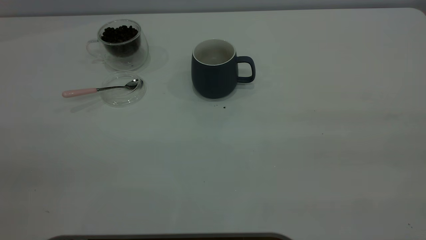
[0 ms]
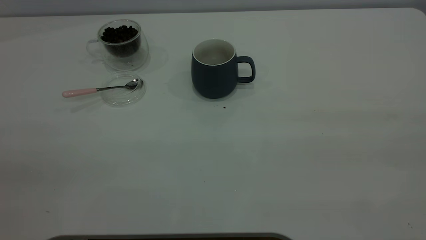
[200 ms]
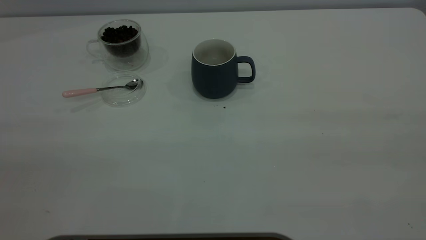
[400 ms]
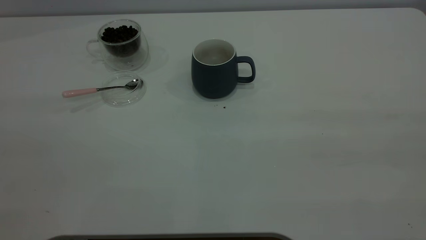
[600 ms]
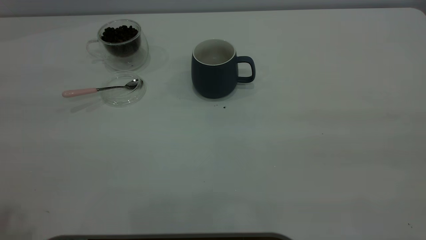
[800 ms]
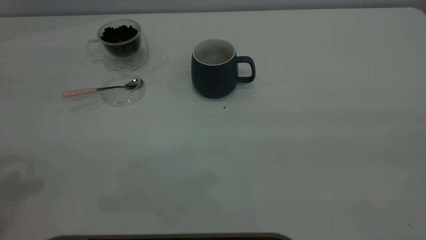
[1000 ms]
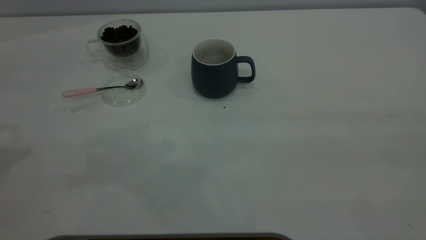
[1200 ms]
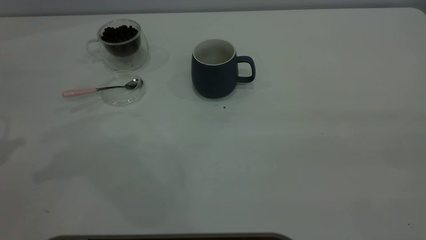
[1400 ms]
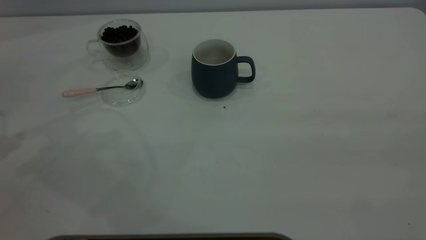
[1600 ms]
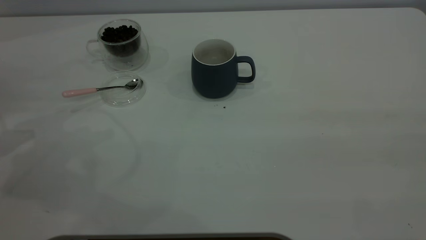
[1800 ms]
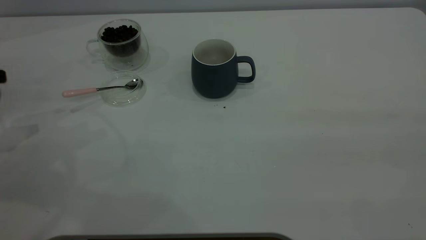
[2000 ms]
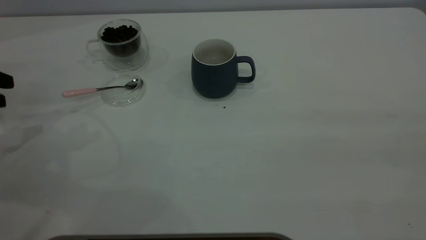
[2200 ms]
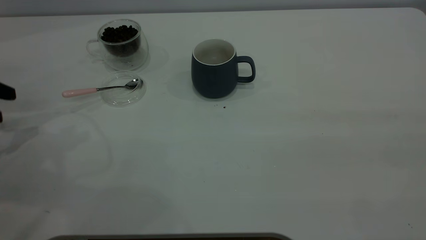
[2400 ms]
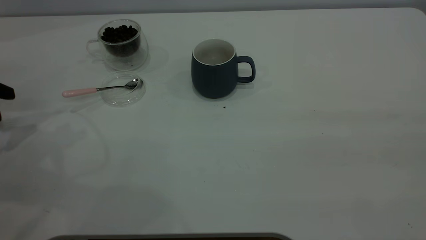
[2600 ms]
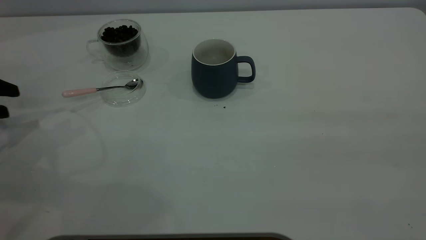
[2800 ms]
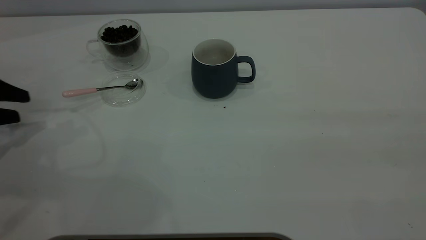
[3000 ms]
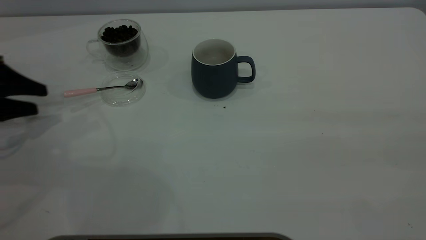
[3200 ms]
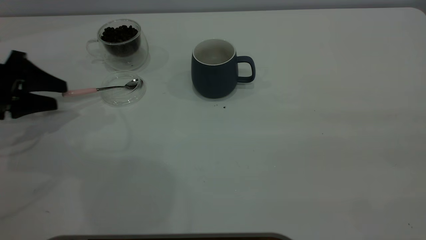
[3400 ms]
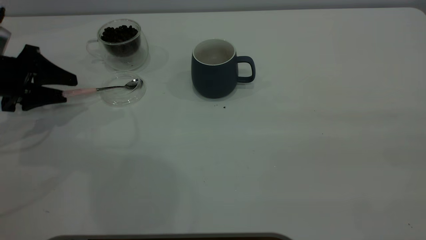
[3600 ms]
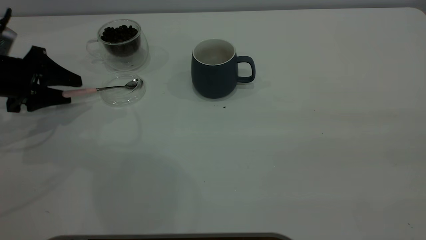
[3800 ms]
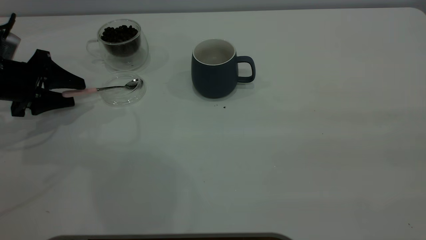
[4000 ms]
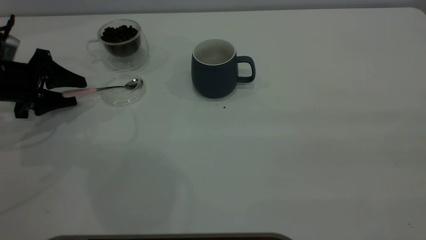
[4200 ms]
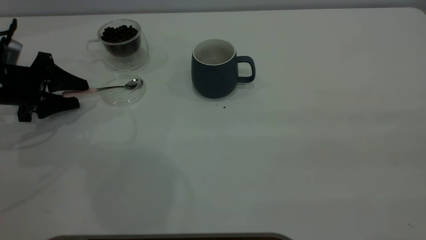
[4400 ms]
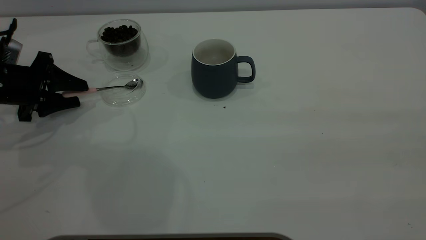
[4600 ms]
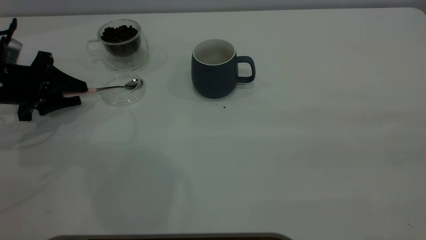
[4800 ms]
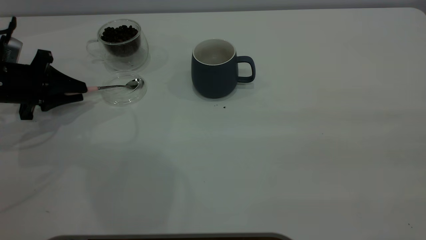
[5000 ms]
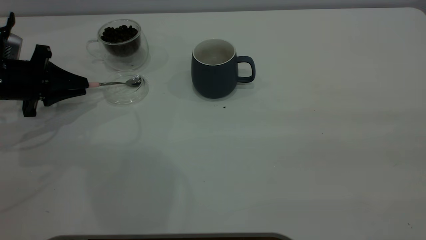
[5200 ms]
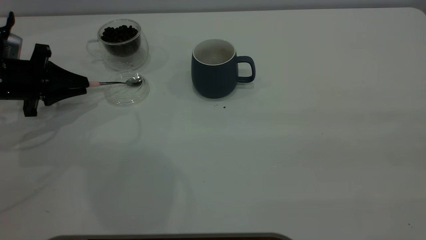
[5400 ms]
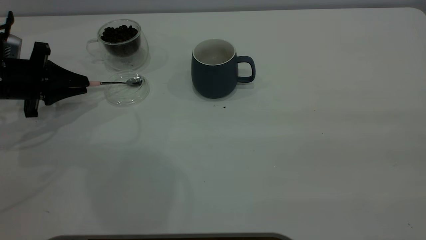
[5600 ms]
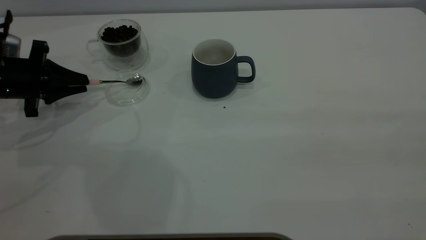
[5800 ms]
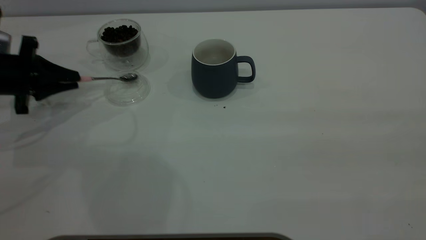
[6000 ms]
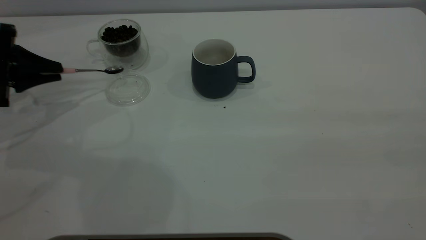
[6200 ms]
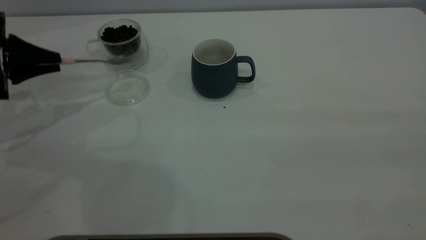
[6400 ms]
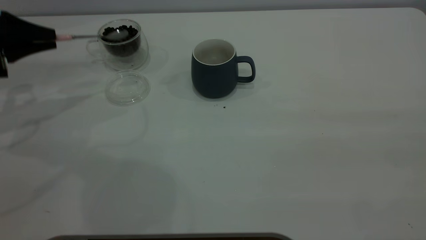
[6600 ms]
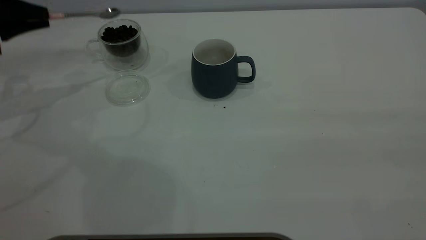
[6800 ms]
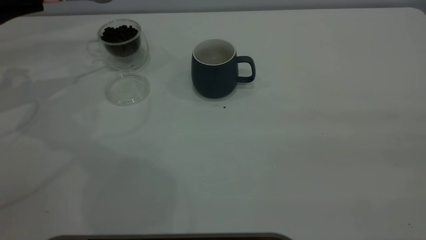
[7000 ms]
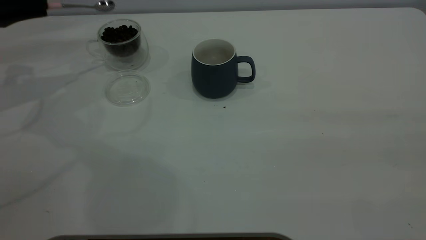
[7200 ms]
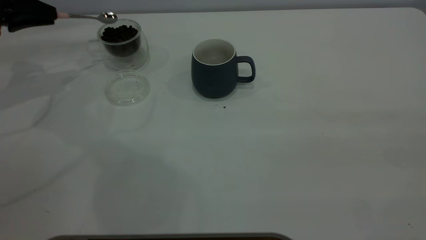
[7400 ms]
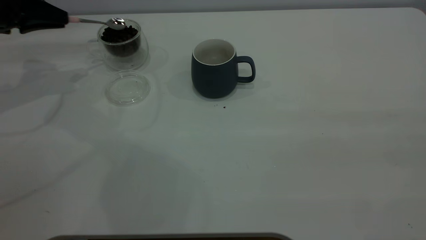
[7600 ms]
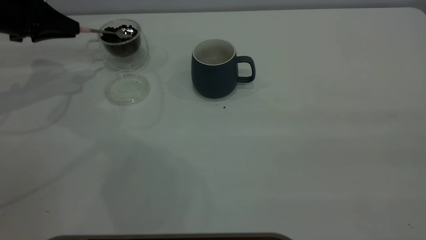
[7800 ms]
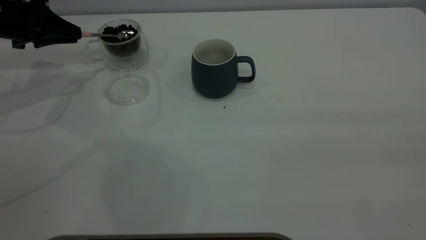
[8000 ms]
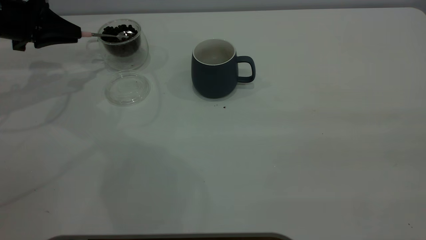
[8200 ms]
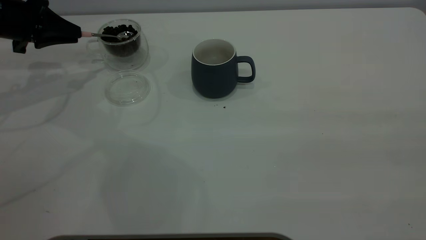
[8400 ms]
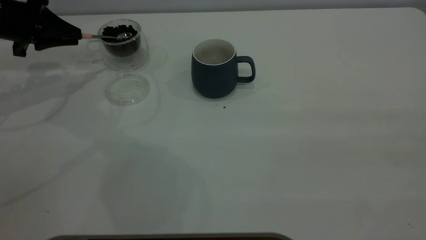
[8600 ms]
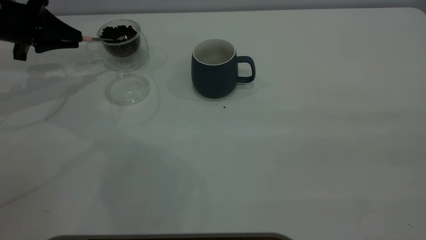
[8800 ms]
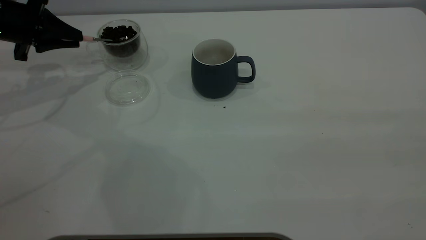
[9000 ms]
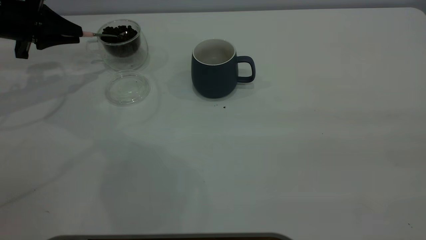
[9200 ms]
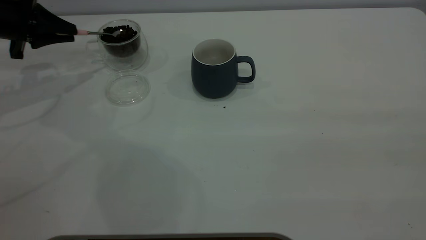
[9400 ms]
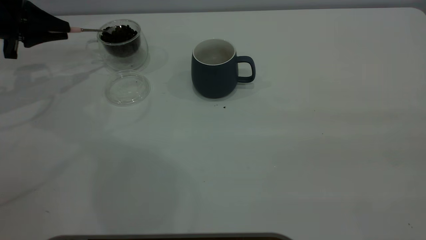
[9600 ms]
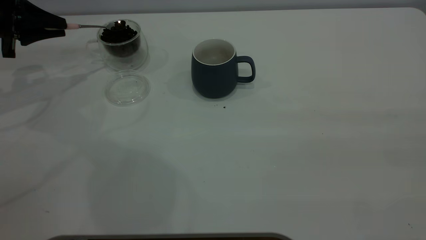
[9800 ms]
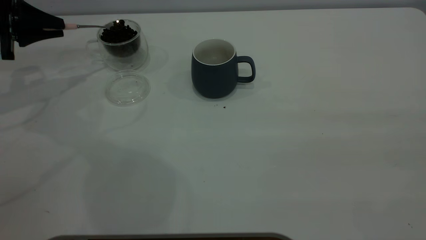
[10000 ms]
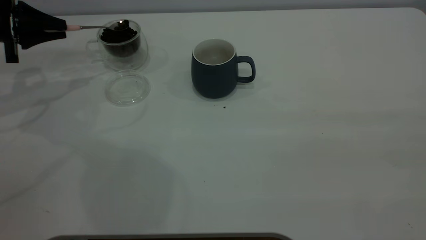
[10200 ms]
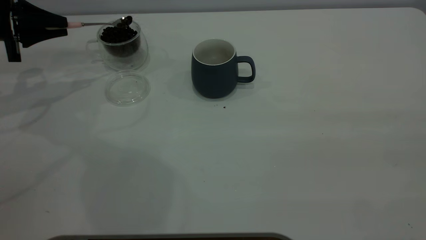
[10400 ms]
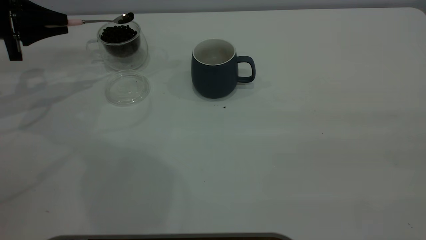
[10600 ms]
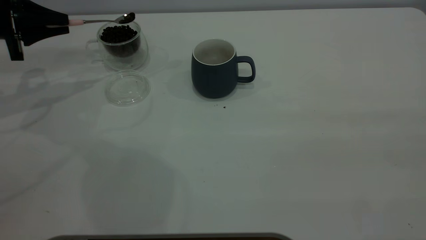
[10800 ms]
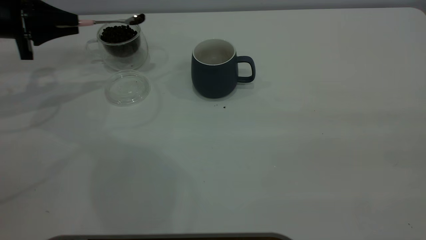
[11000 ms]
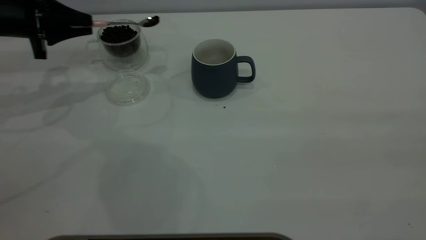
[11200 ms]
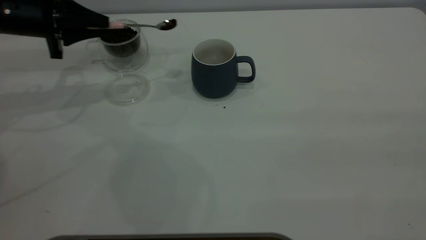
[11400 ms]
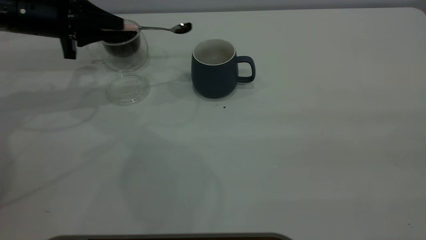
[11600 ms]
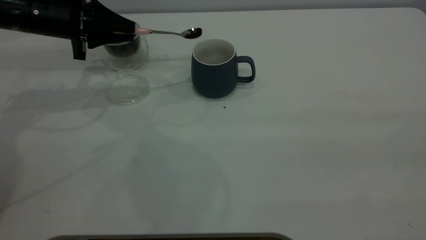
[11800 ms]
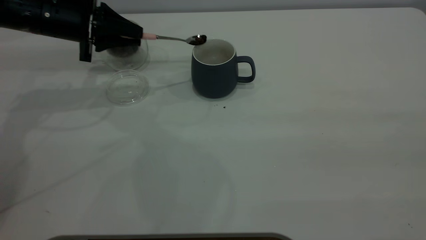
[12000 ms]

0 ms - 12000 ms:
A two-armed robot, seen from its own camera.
Task of the whole recording: the right gripper place the grey cup in the center of the table, the left gripper take the pink spoon from the cup lid and scoop out the coffee beans from the coffee cup and put them into the grey cup, the left gripper put the spoon back into the cup lid.
Step, 0 ms - 6200 ms: Pick up the spoon.
1600 ms - 3000 ms: The left gripper moves downward, about 10 cm, and opens up.
3000 ms - 4400 ms: The left gripper heads to the right, covering about 5 cm.
4400 ms - 6000 ms: The left gripper closes its fingers.
6000 ms - 7600 ms: The left gripper goes about 10 cm forward and upward.
9000 ms - 10400 ms: The grippers move only a little.
10400 ms - 12000 ms: The left gripper moves to the right, approximately 15 cm.

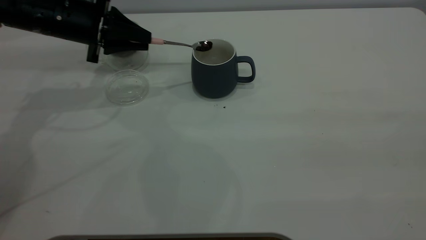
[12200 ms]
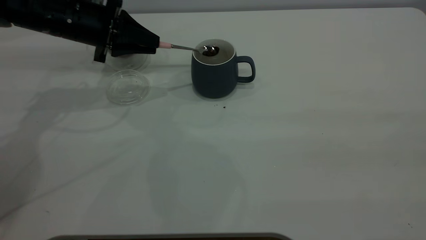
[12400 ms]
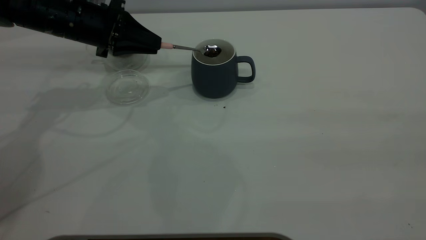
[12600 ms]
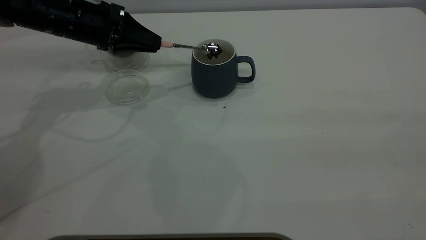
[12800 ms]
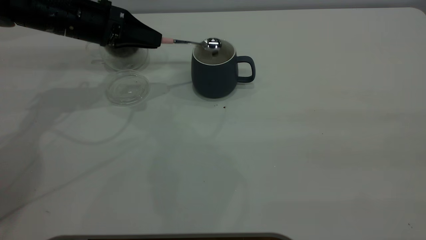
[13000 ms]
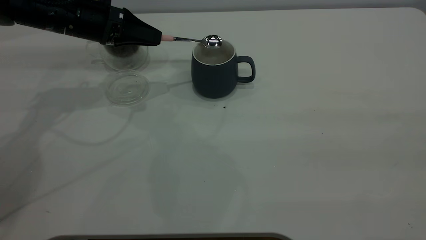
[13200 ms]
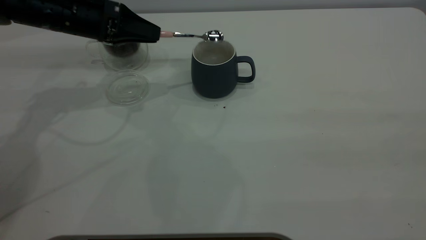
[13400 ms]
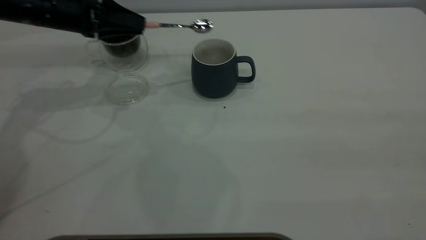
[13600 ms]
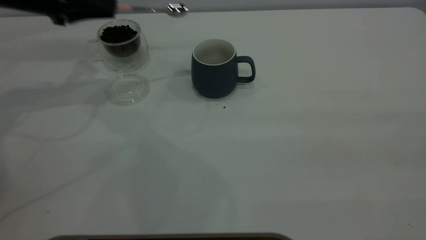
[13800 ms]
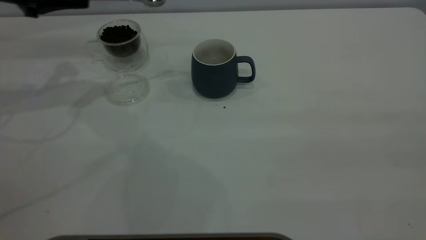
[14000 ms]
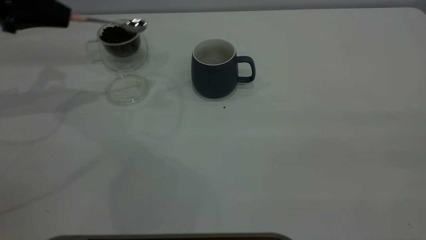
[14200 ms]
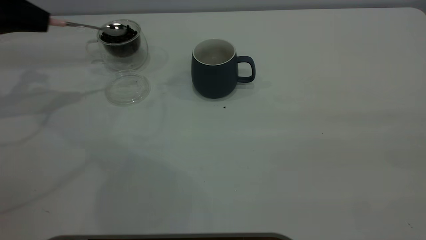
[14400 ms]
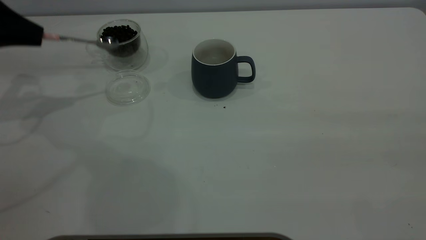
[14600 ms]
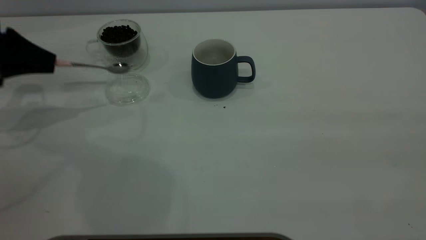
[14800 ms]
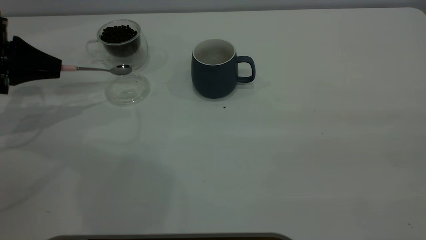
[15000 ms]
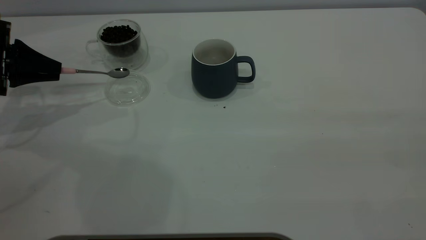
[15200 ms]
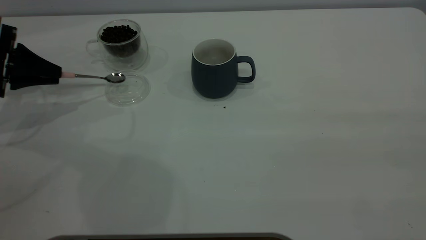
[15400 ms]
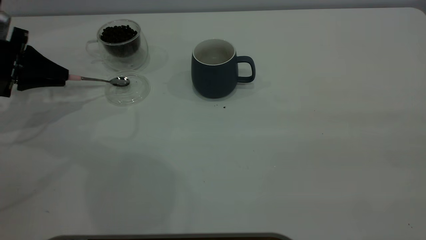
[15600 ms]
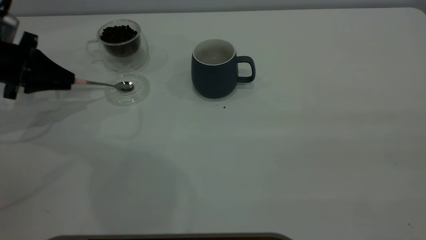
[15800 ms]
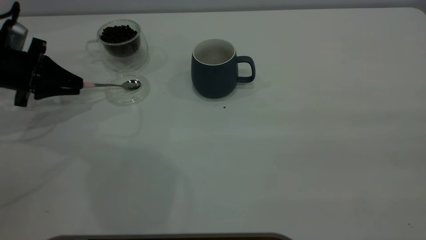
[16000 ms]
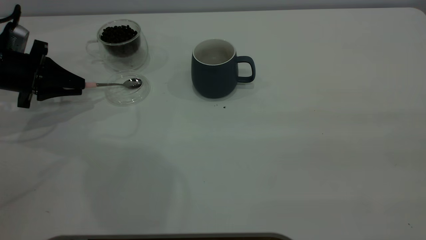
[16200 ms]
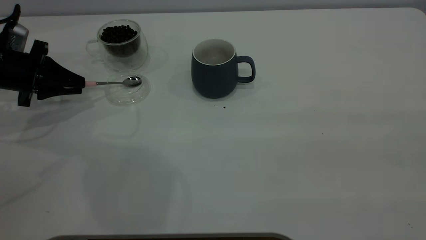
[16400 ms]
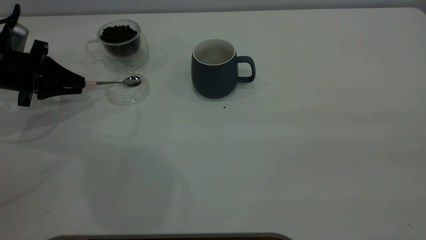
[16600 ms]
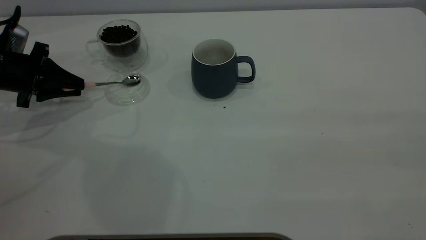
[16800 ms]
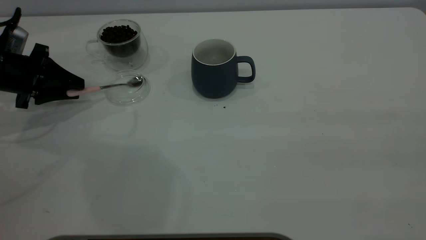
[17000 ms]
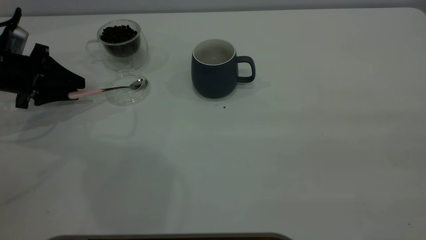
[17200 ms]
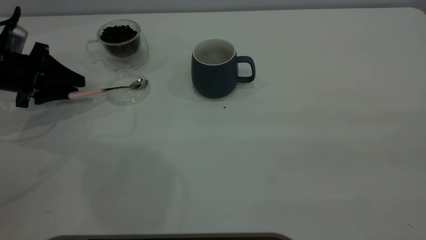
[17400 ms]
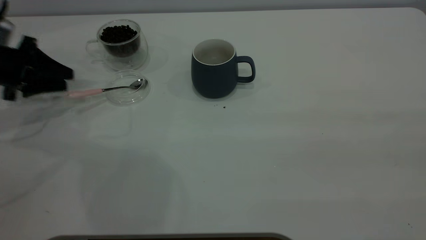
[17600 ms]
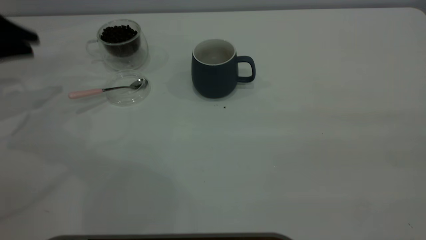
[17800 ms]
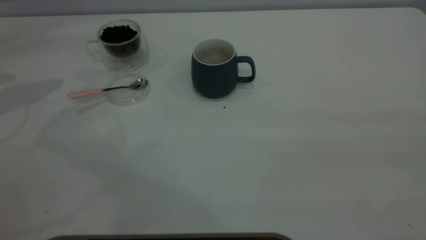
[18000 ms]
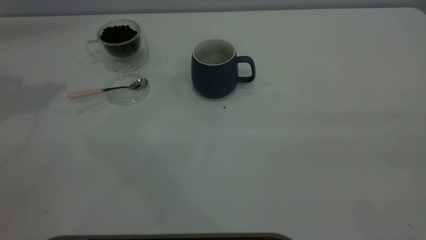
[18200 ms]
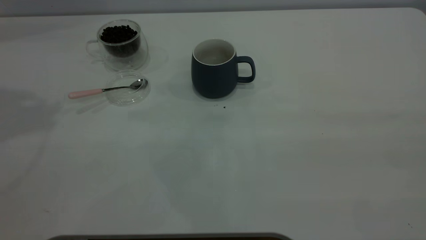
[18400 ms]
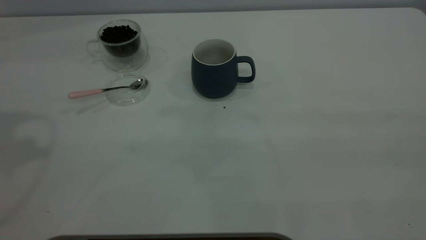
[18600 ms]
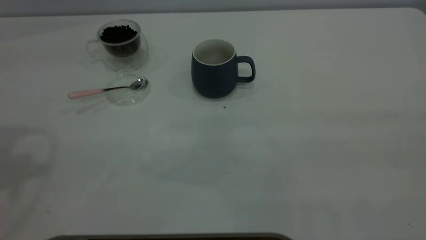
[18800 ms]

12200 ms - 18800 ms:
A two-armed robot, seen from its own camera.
Task of the whole recording: the right gripper place the grey cup in the center of the table, the left gripper take the pink spoon from the cup lid and scoop out the coffee beans from the coffee cup and put them into the grey cup, the left gripper put the spoon back into the cup lid.
Step, 13800 ms - 17600 ms: Place the spoon back in its original place.
12200 ms - 13800 ms: The left gripper moves to the left and upward, some 10 cm.
13800 ms - 15400 ms: The left gripper shifts roughly 15 cm to the left, downward and backward.
15400 ms - 17200 ms: The left gripper opens.
17200 ms - 18800 ms: The left gripper travels upward by approximately 35 cm.
